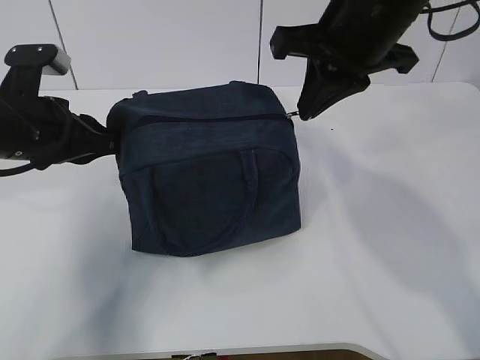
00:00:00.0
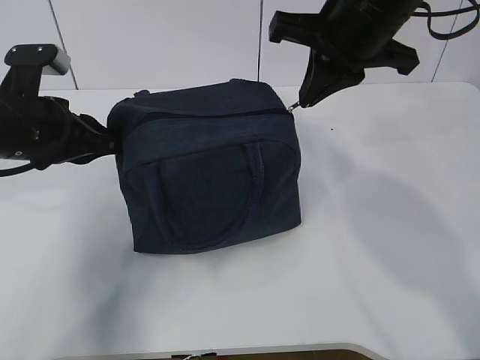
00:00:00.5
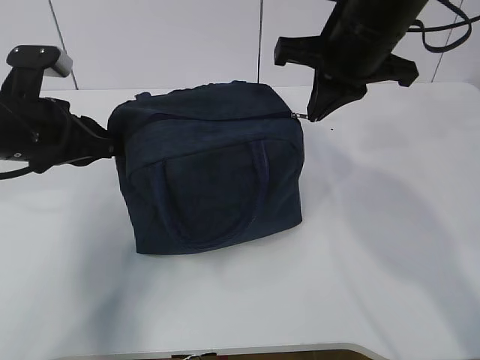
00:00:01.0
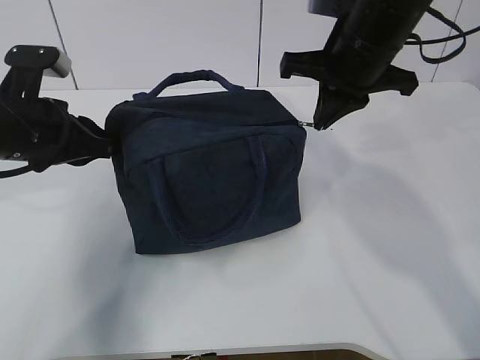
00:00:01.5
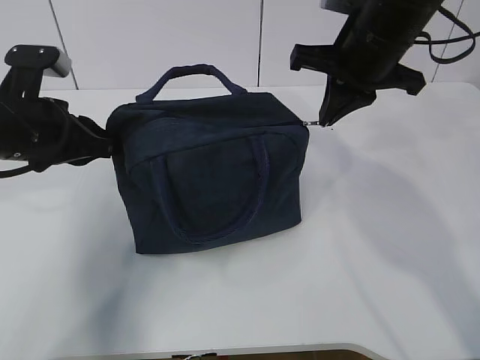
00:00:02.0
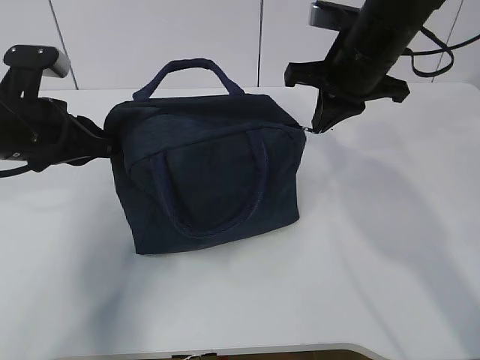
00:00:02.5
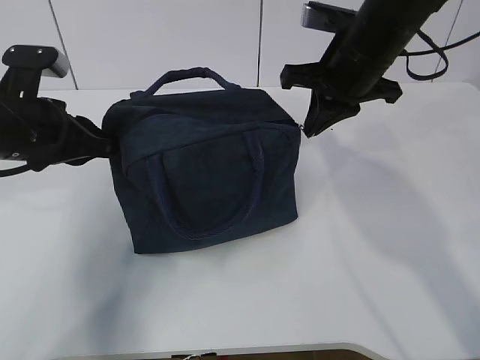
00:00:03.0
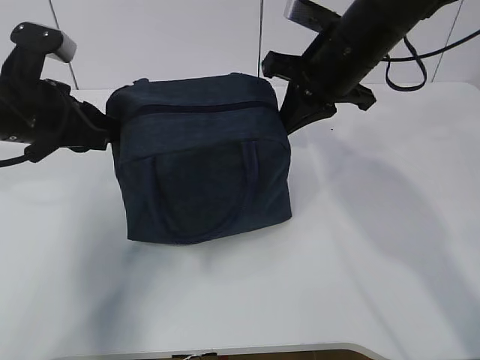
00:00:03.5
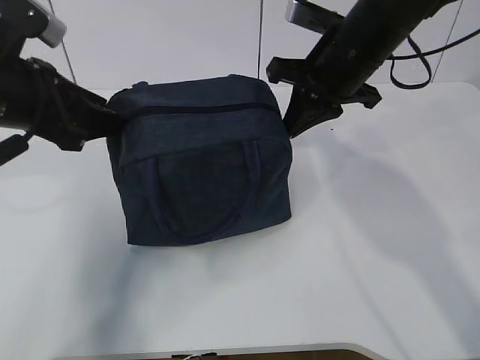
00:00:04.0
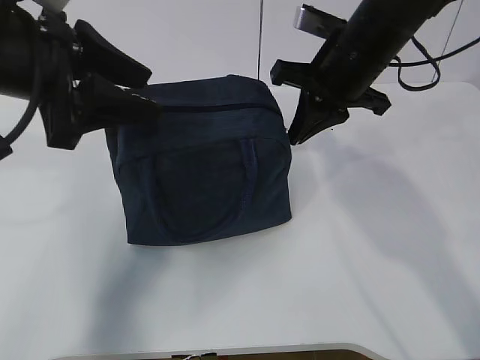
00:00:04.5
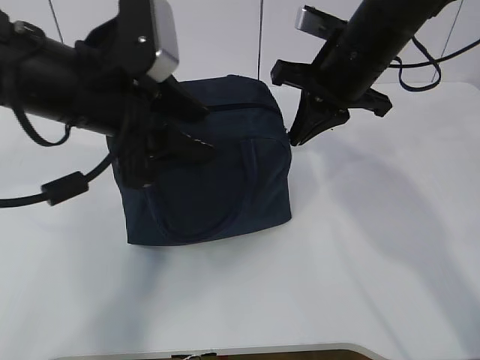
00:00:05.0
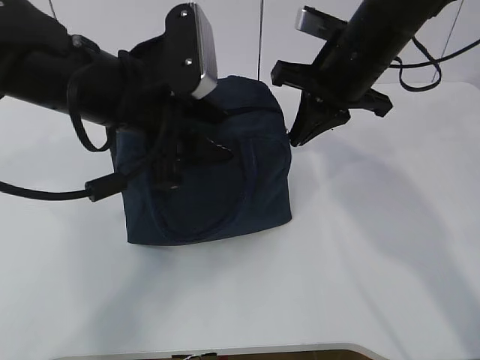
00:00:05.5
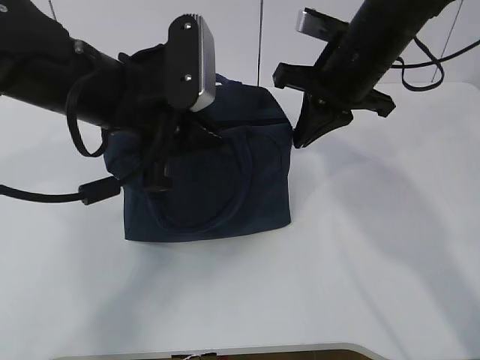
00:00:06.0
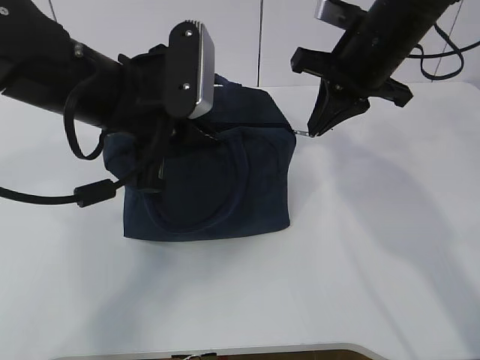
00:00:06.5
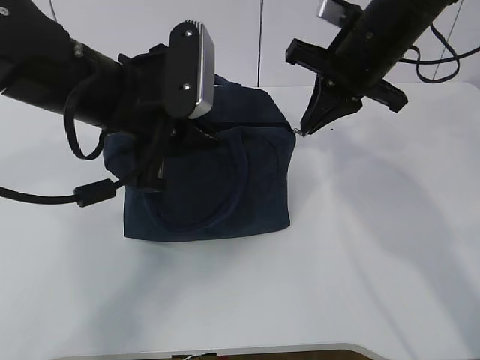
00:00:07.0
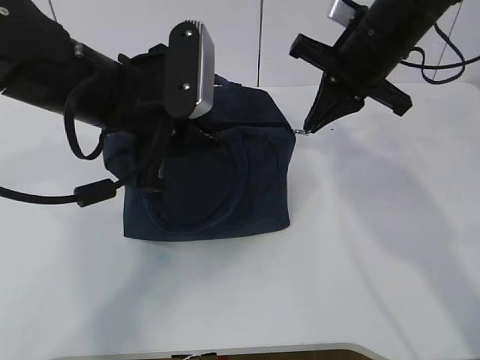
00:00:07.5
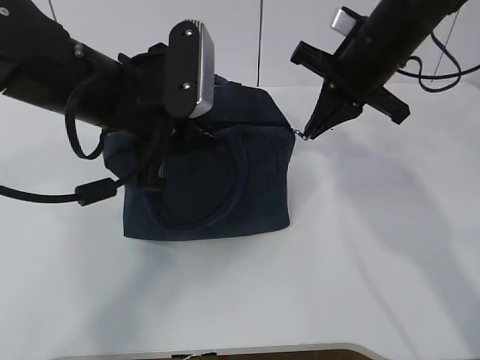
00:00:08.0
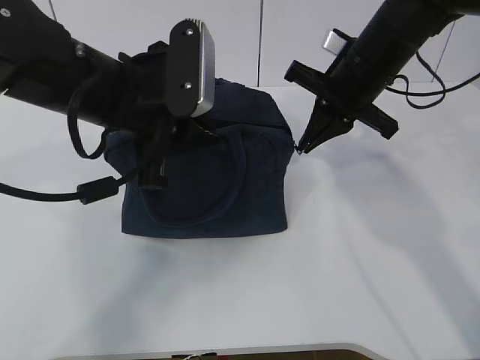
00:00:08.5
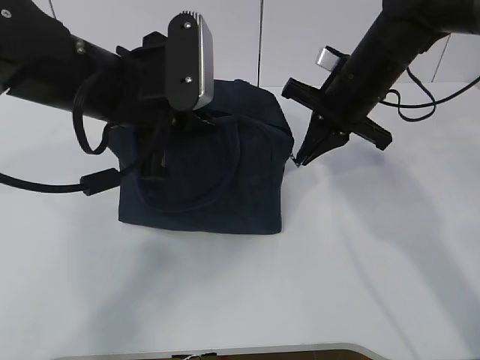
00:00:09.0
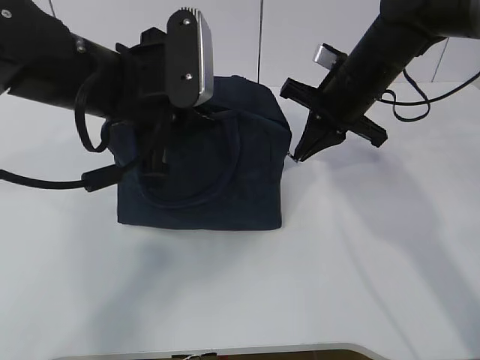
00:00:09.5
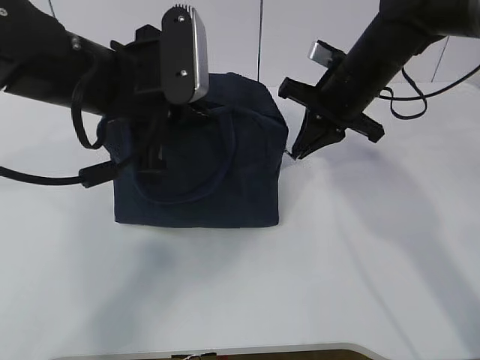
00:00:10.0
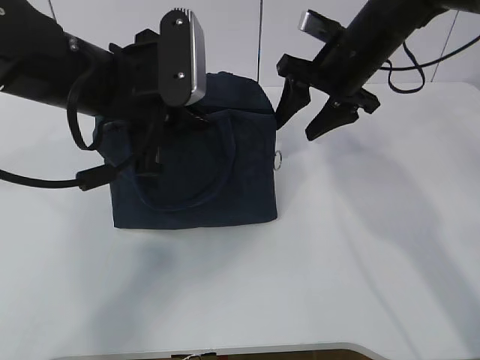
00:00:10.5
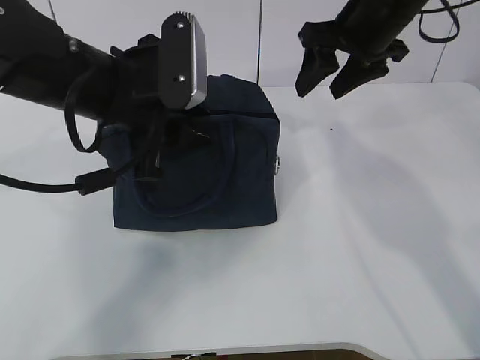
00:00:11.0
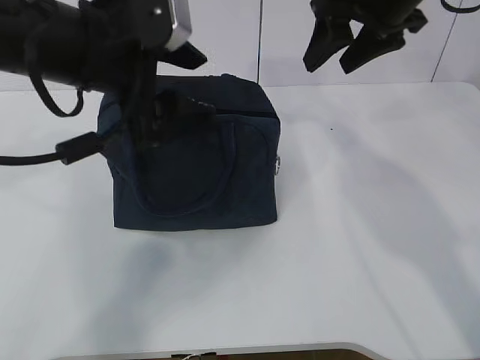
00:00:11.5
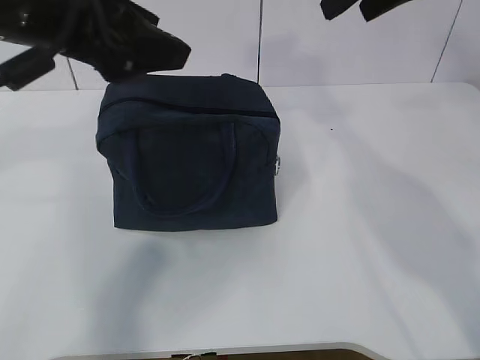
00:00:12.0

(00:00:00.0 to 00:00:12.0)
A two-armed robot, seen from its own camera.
00:00:00.0 - 00:00:02.0: The right gripper ends up some 5 cm from where it was.
00:00:02.0 - 00:00:04.0: The left gripper opens.
00:00:04.0 - 00:00:06.0: The left gripper is displaced to the right by roughly 10 cm, and closes its fingers.
00:00:08.0 - 00:00:10.0: The right gripper heads downward, covering approximately 5 cm.
00:00:10.0 - 00:00:12.0: The right gripper shifts about 20 cm upward, and opens its fingers. The left gripper moves upward, roughly 10 cm, and opens up.

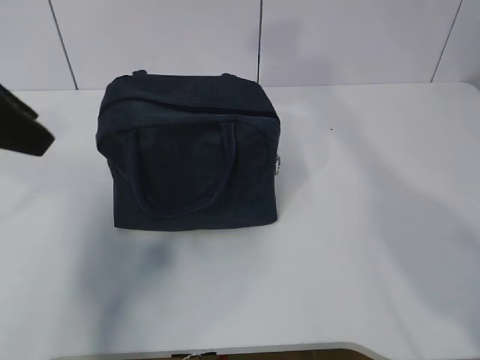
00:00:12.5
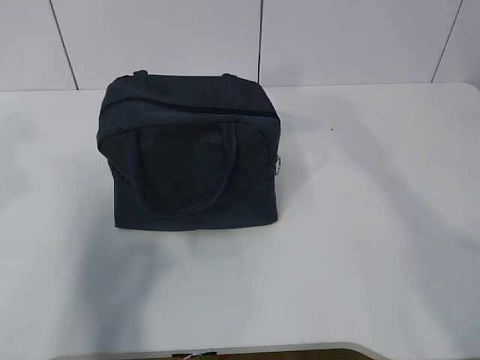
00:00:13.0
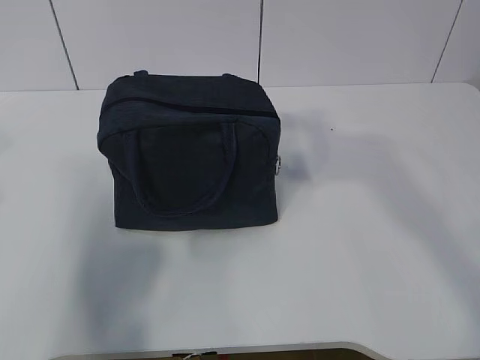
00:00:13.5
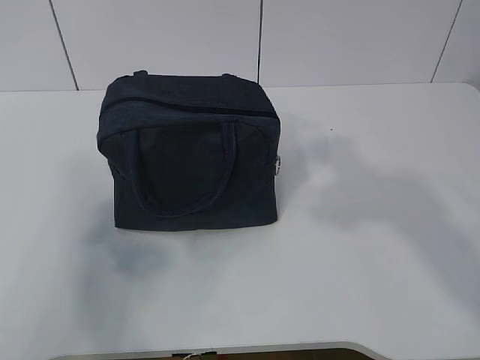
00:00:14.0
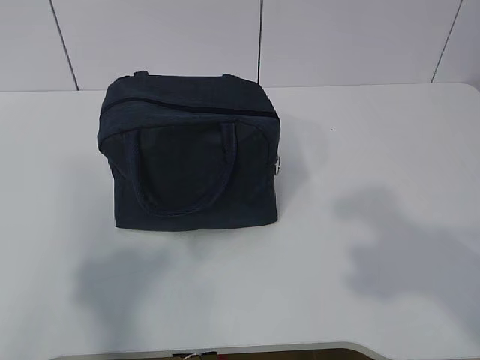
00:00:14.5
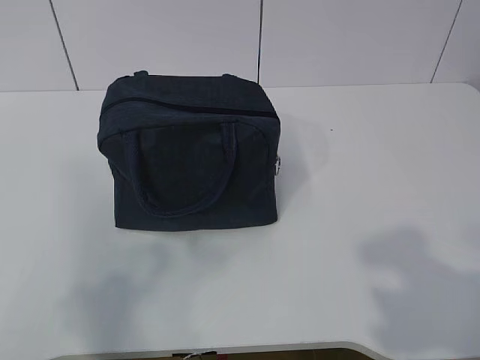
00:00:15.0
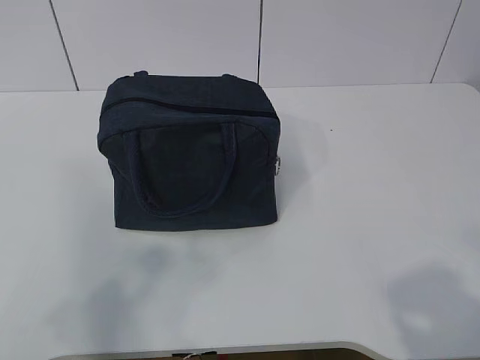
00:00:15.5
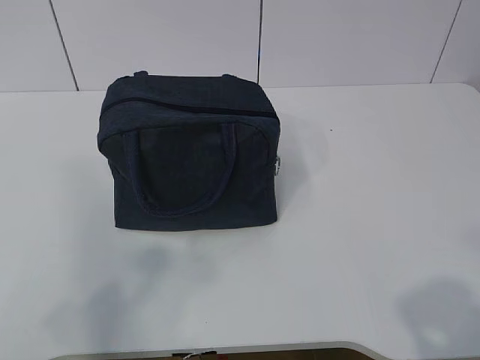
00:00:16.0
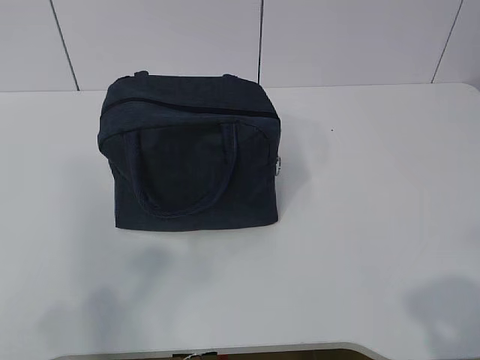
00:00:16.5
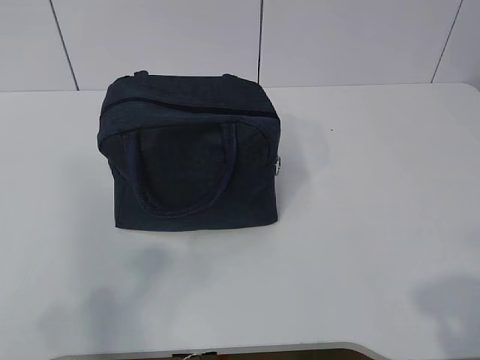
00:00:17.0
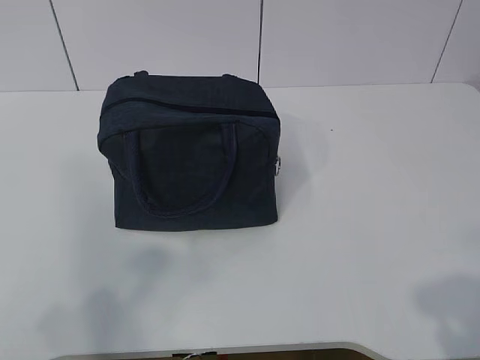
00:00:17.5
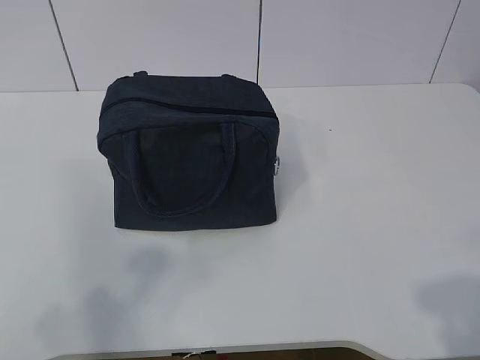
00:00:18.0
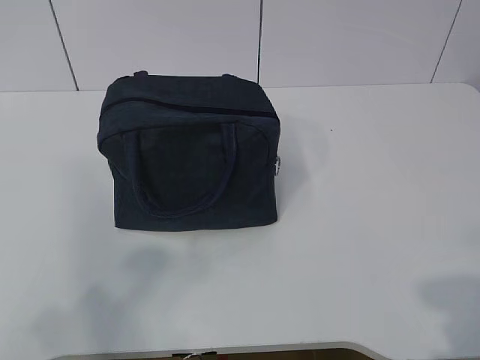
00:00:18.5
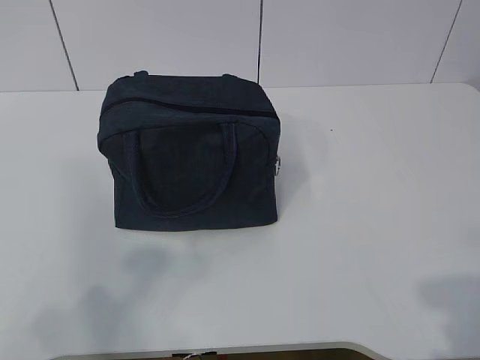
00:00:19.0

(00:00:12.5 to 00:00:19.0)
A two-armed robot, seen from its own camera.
00:00:12.5 - 00:00:14.5: The two grippers go about 25 cm backward.
00:00:14.5 - 00:00:17.0: The left gripper ends up about 5 cm from where it was. Meanwhile the right gripper is displaced downward and backward by about 10 cm.

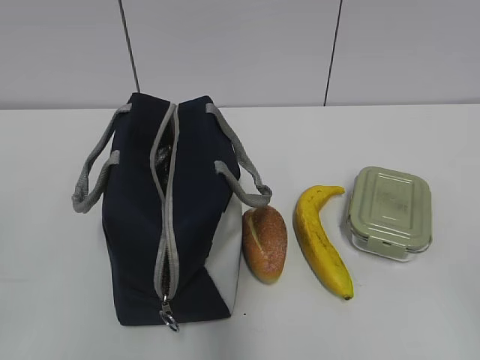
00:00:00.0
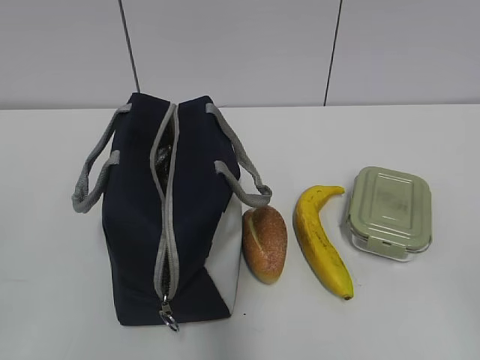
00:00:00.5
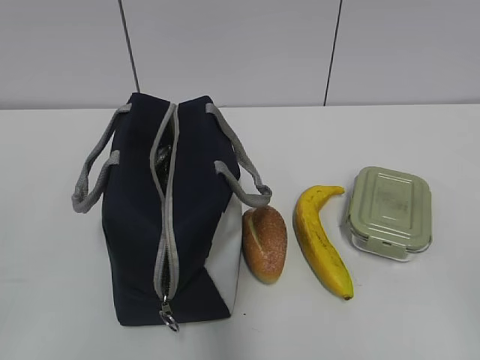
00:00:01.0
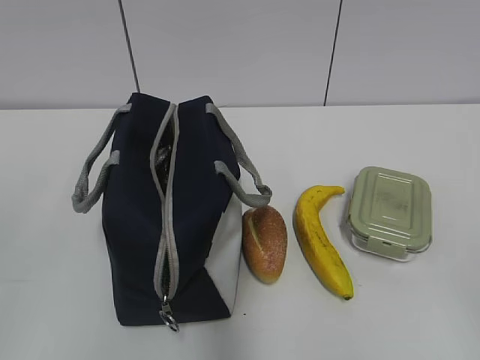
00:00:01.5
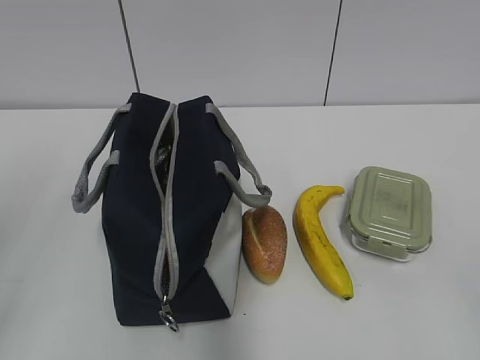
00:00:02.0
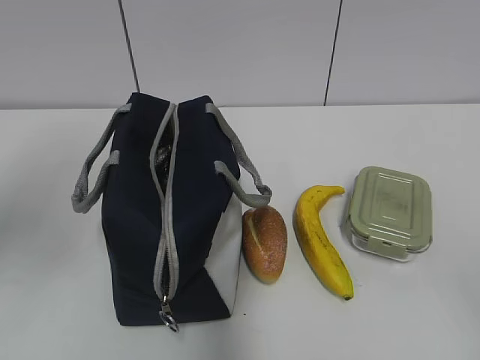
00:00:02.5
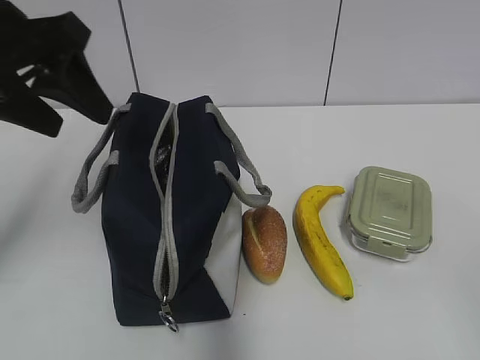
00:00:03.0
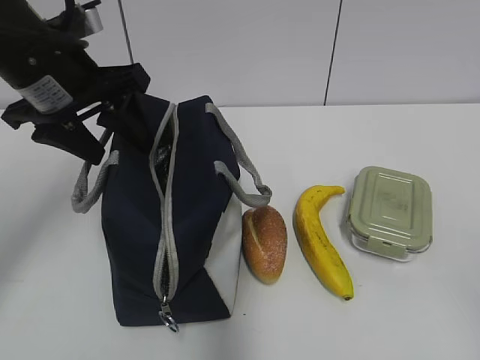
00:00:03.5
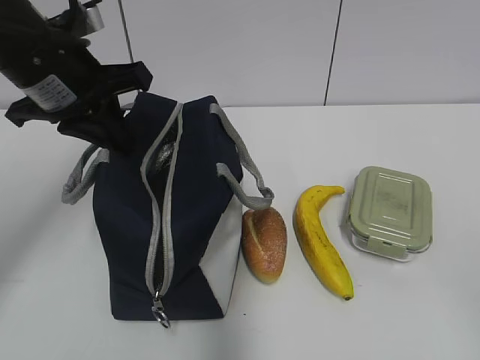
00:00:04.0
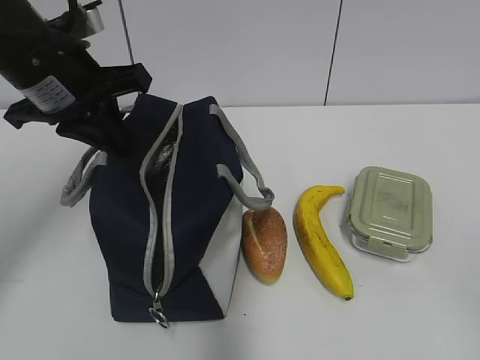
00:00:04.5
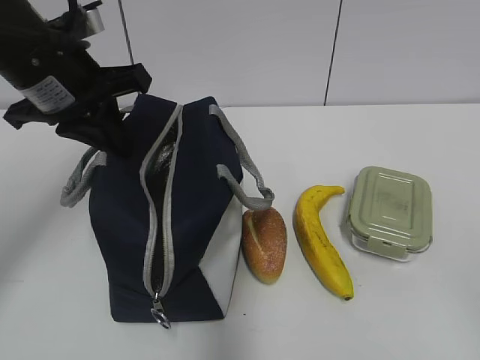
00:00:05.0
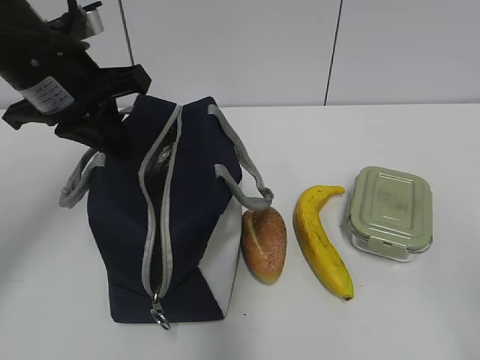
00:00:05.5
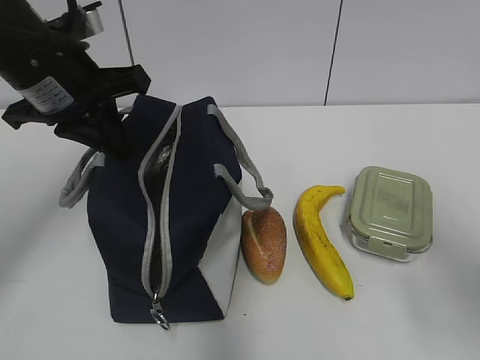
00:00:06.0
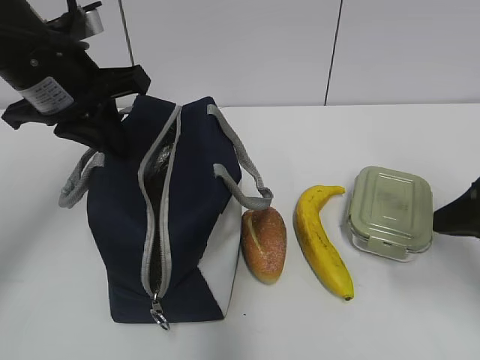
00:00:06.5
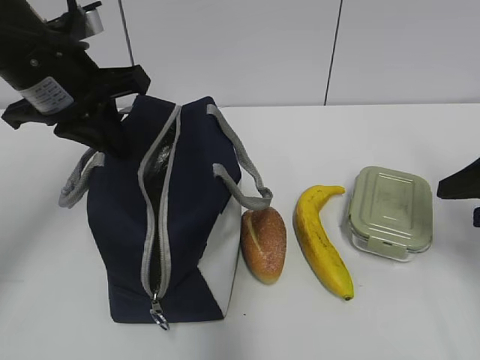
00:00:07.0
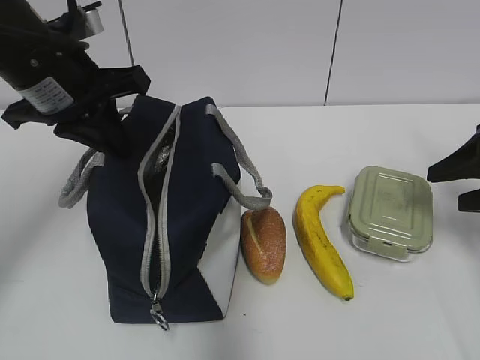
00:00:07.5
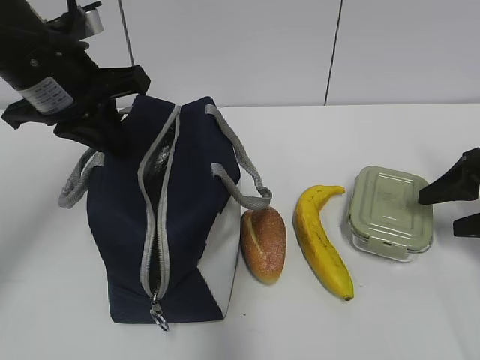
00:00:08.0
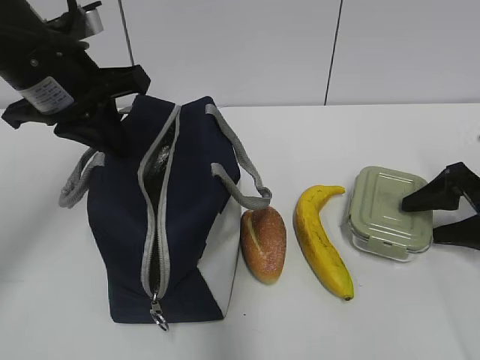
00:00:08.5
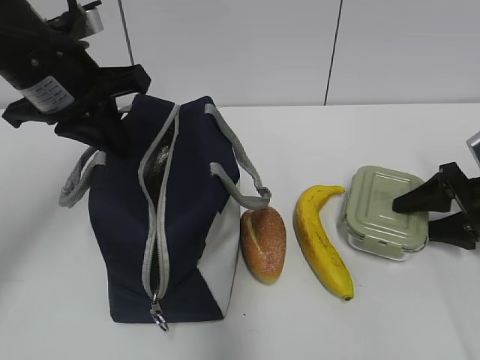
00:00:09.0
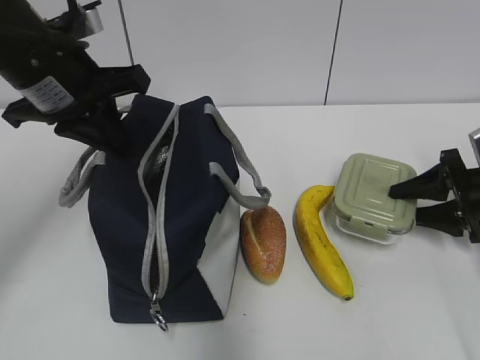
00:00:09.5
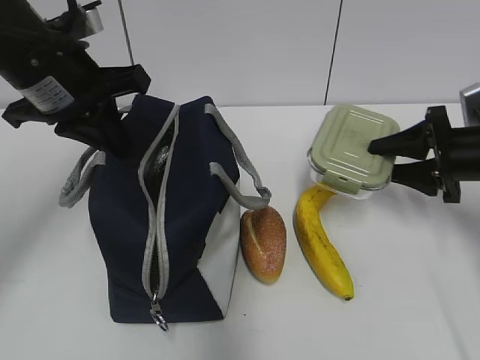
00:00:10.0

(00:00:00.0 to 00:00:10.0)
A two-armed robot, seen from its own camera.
00:00:02.0 - 00:00:04.0: The left gripper is displaced forward and to the right by some 25 cm, and closes its fingers.
00:00:04.0 - 00:00:06.0: The right gripper shifts about 15 cm forward.
00:00:06.0 - 00:00:08.0: The right gripper moves forward, downward and to the right, about 20 cm.
00:00:08.0 - 00:00:10.0: The right gripper ends up about 5 cm from where it was, and closes.
